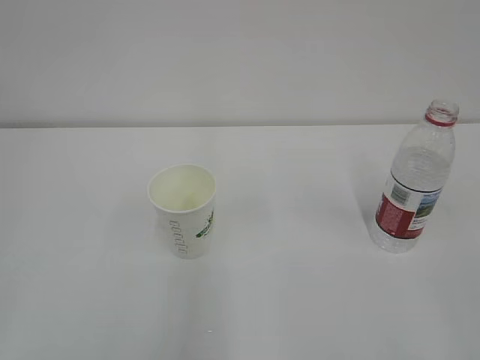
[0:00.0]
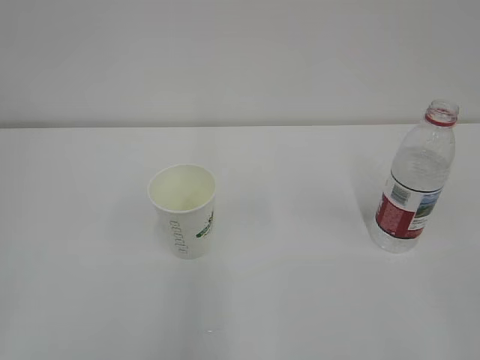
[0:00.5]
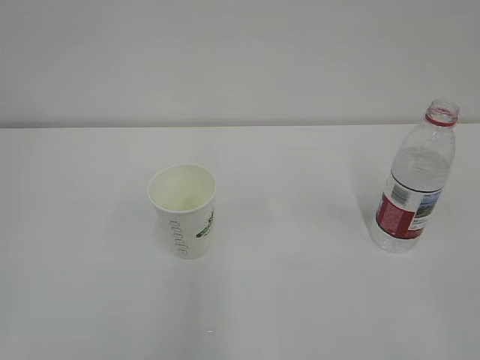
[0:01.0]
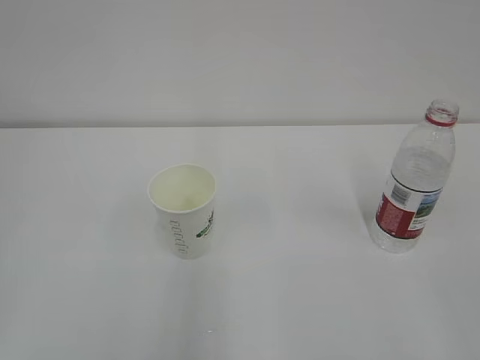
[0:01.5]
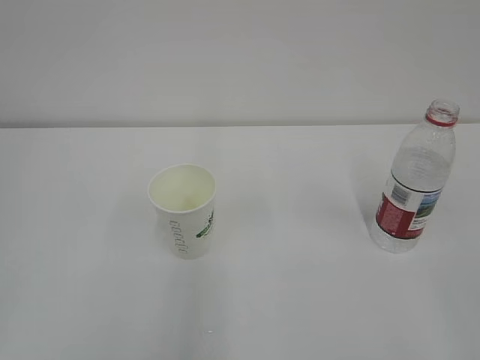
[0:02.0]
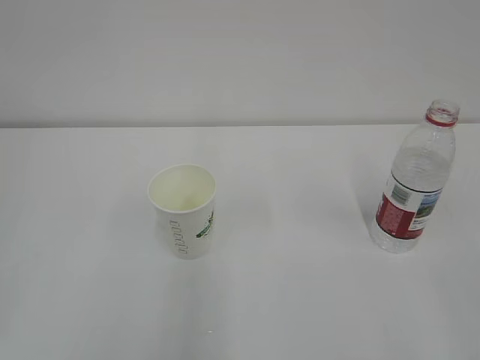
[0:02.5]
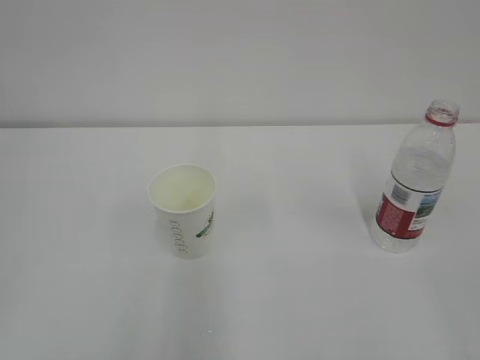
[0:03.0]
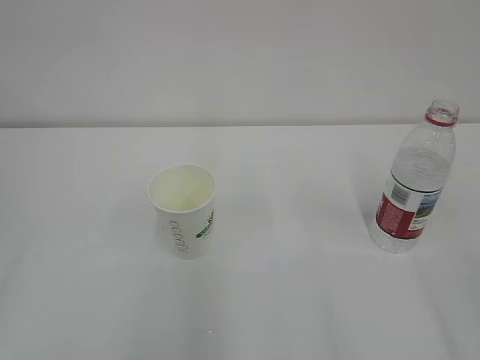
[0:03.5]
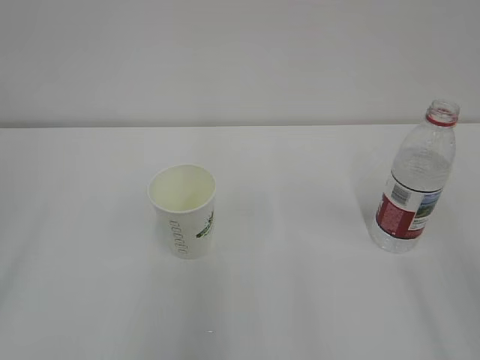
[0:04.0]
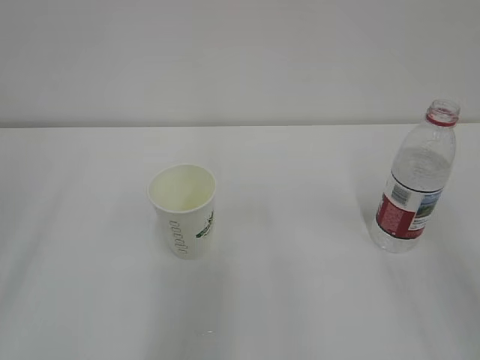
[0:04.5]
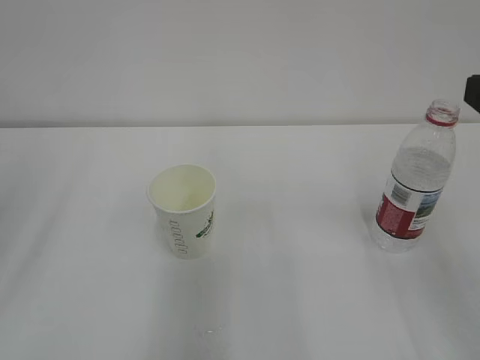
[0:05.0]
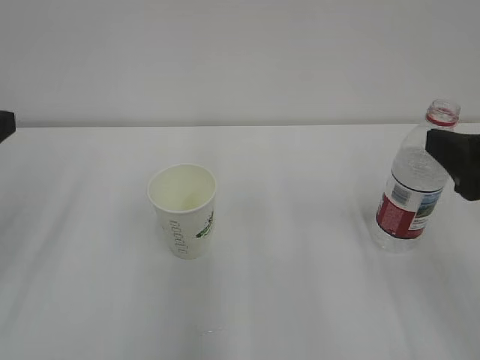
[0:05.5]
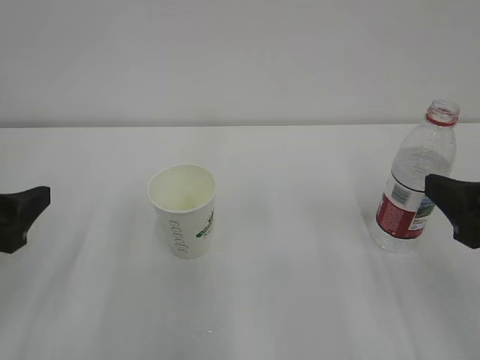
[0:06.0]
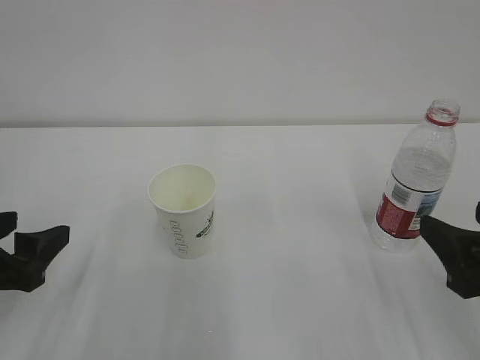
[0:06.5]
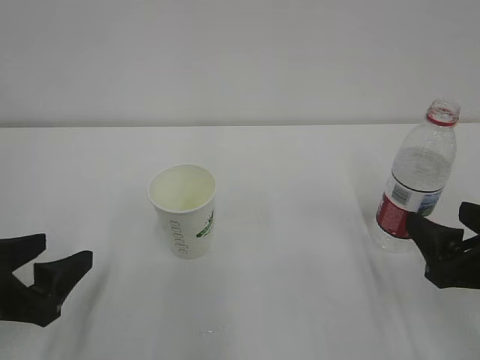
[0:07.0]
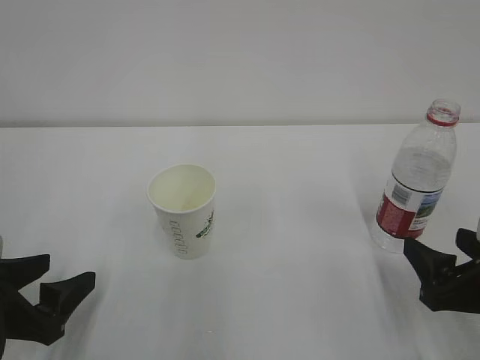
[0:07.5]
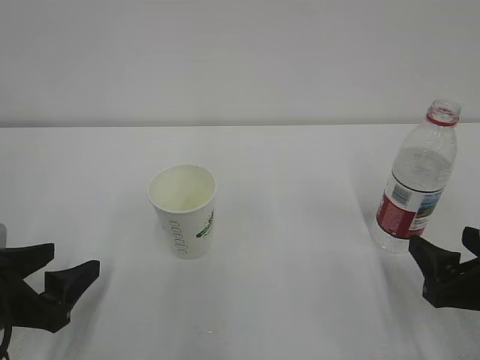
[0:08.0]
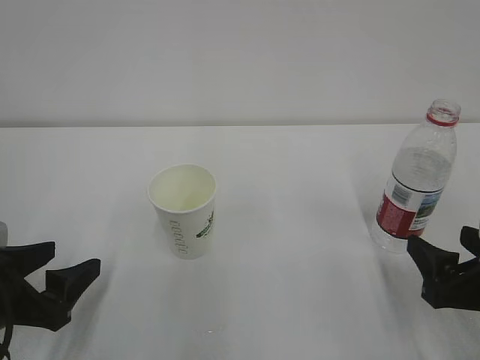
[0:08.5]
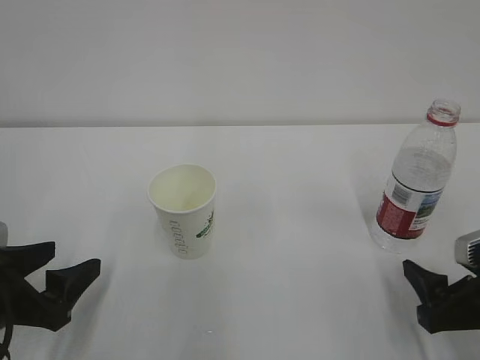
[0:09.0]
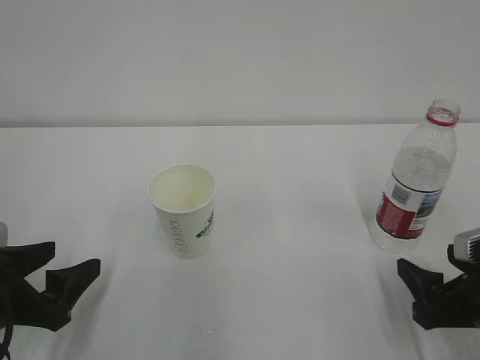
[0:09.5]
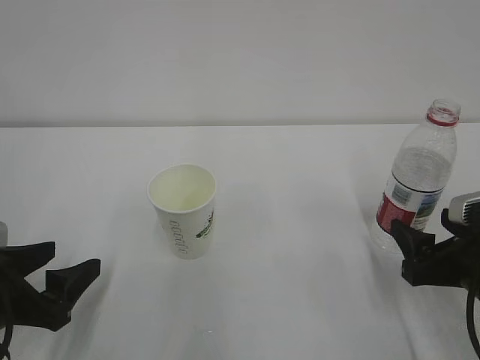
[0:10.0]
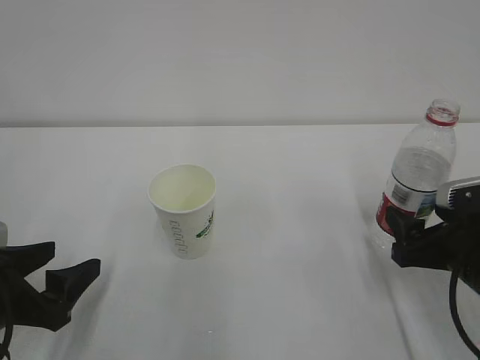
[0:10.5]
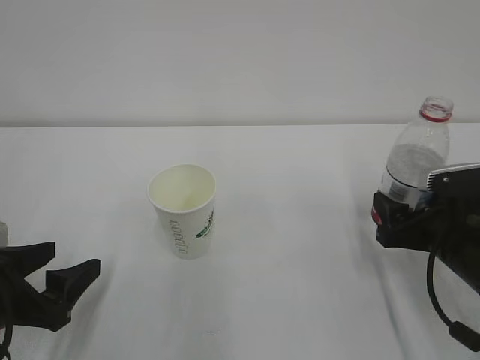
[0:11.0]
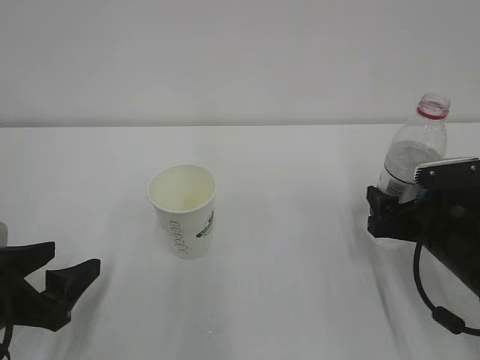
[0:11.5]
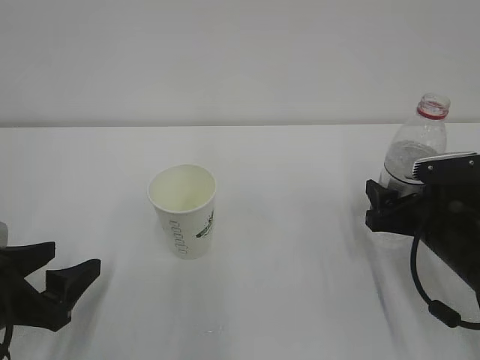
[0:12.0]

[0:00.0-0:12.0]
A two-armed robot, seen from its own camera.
0:04.0 to 0:06.0: Both grippers move downward and forward, some 15 cm.
0:06.0 to 0:08.0: Both grippers move downward, about 10 cm.
0:08.0 to 0:10.0: The grippers make only small movements.
0:10.0 to 0:12.0: The right gripper travels forward by about 5 cm.

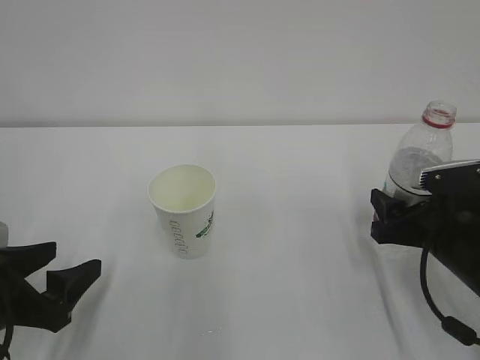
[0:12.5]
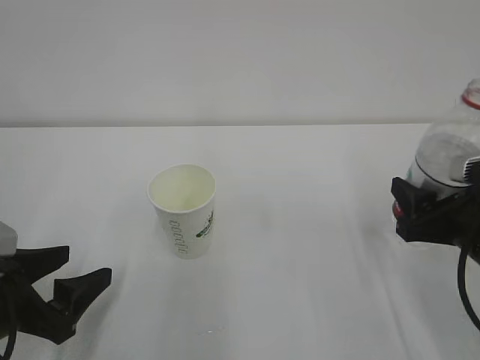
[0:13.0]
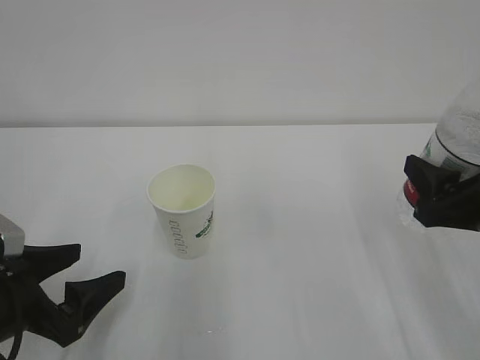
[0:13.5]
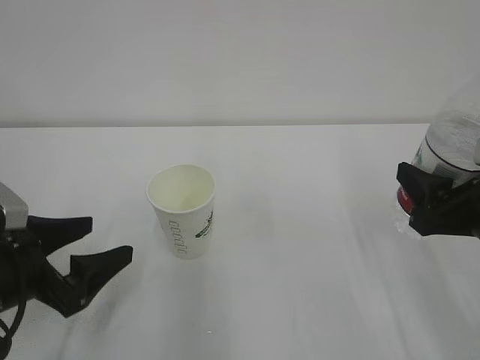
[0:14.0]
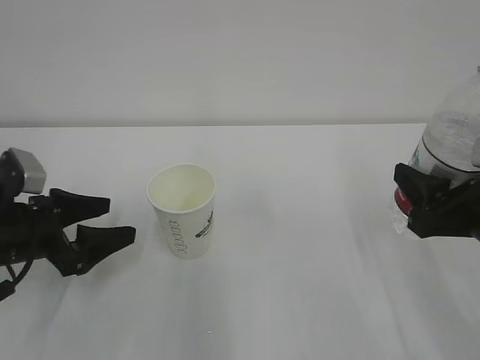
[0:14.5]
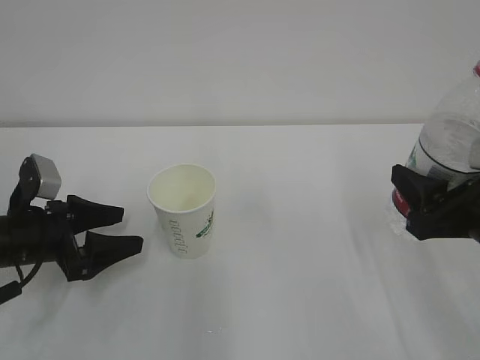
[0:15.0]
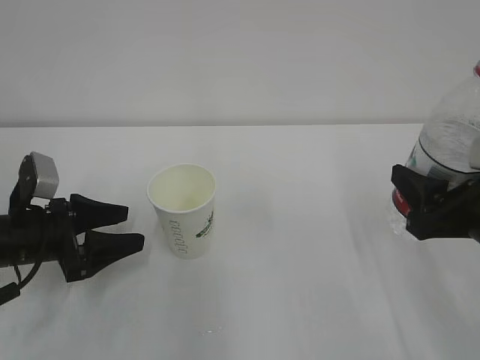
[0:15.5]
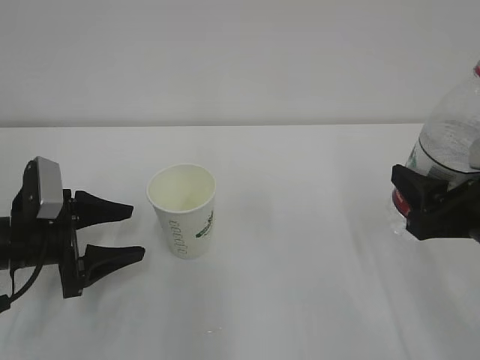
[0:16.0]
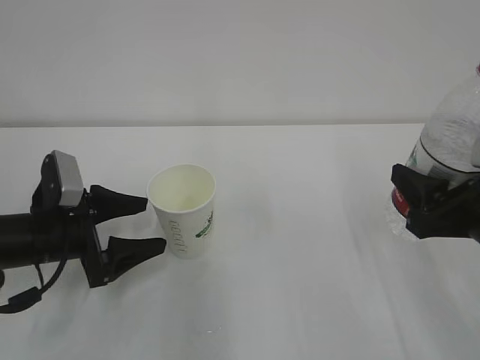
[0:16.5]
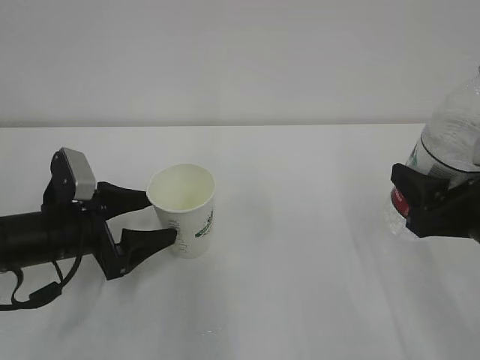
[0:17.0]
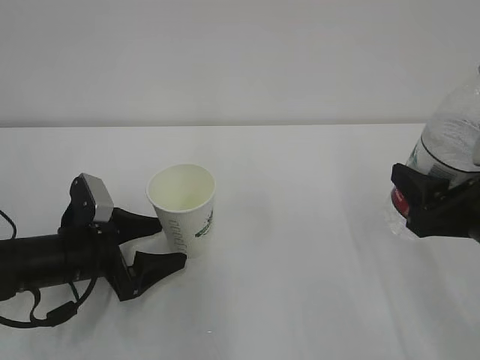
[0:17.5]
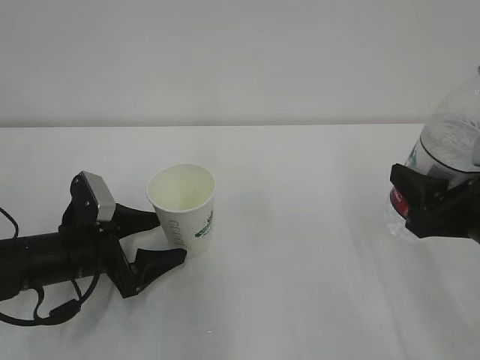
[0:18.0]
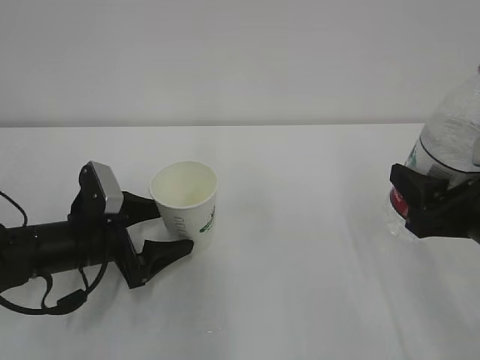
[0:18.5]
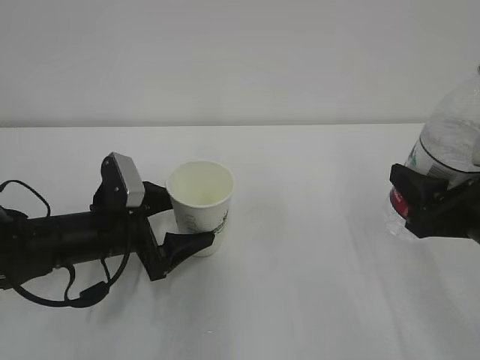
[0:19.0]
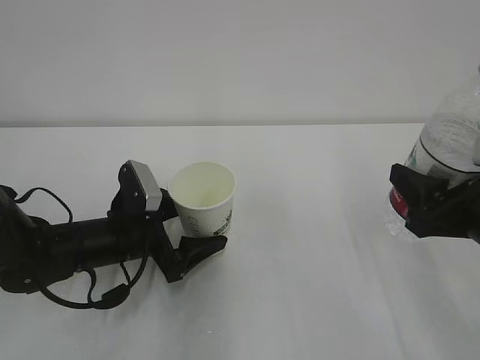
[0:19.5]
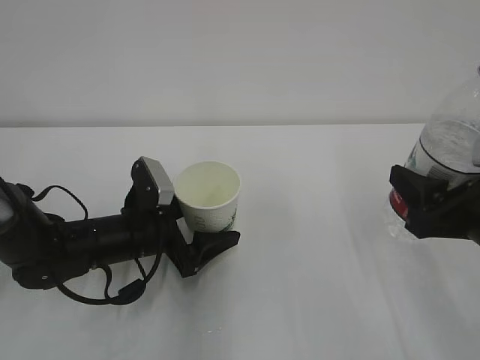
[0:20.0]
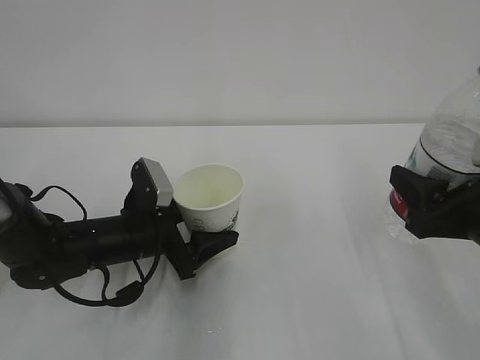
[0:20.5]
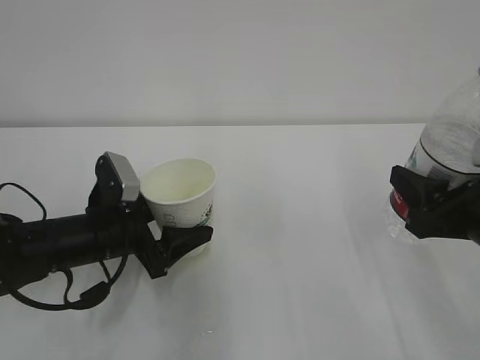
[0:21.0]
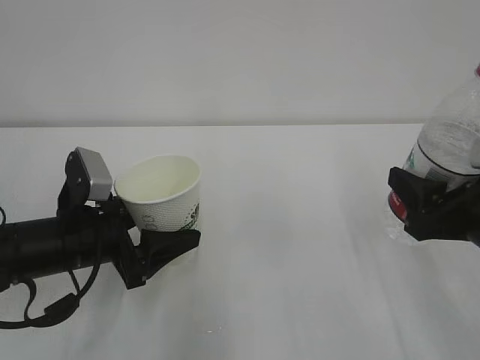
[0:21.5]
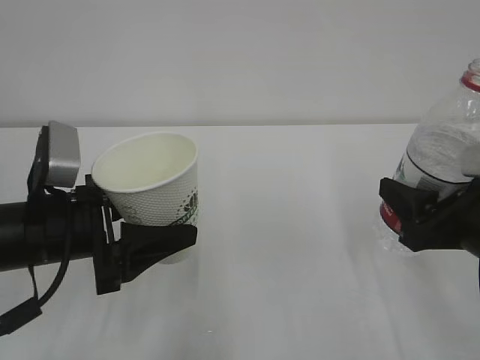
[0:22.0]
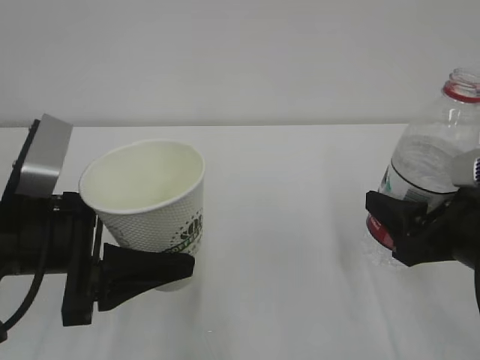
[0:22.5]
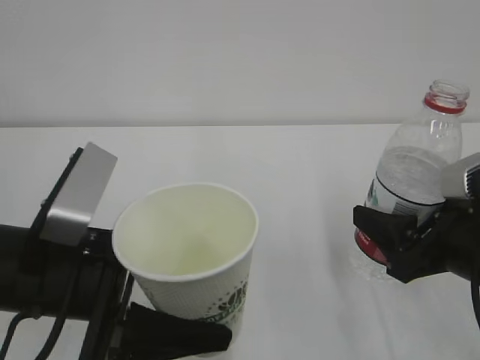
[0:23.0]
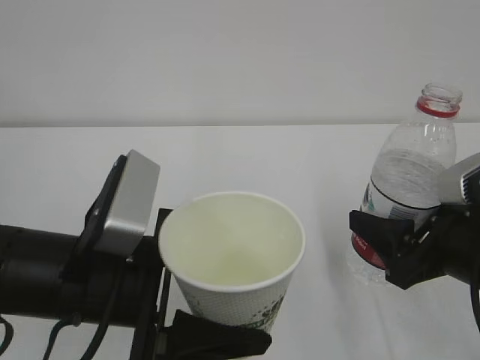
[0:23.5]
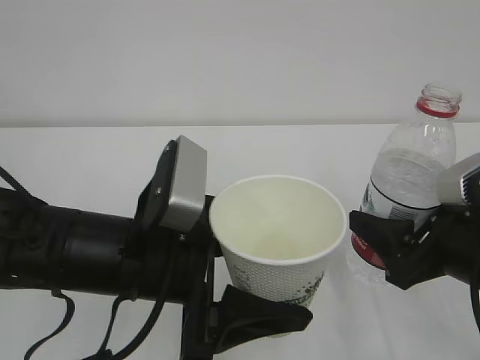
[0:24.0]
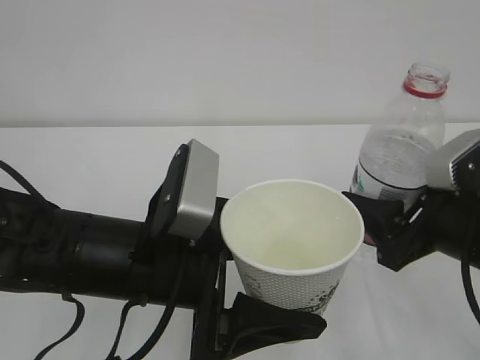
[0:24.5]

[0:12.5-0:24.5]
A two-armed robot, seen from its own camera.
0:12.5 to 0:14.5: The right gripper moves upward and backward, approximately 10 cm, while the left gripper travels forward by roughly 10 cm, and opens up.
0:14.5 to 0:16.5: The left gripper closes, then reopens.
0:16.5 to 0:18.5: The grippers move only a little.
0:18.5 to 0:20.5: The left gripper goes roughly 5 cm to the right, and closes up.
0:20.5 to 0:22.5: The left gripper moves upward and backward, some 15 cm.
0:22.5 to 0:24.5: The left gripper goes some 10 cm to the right.

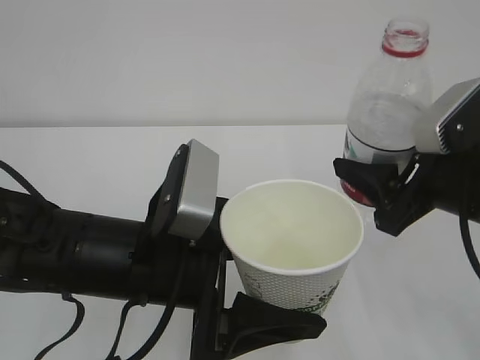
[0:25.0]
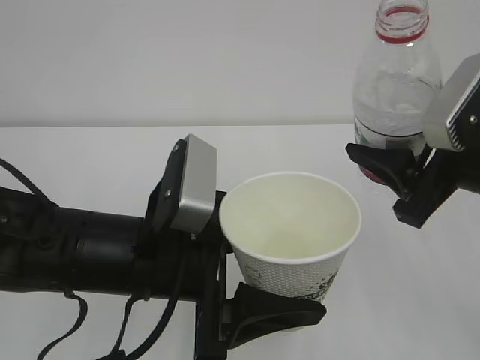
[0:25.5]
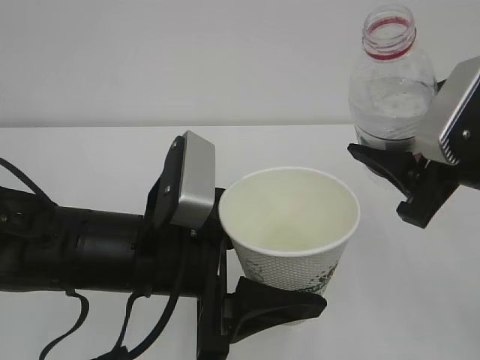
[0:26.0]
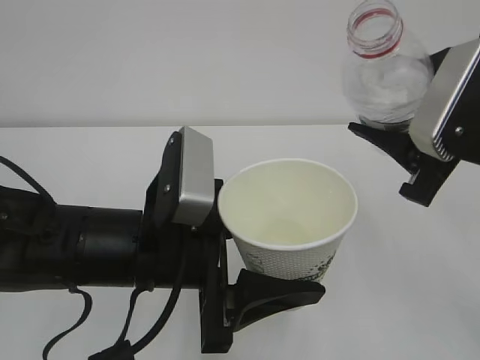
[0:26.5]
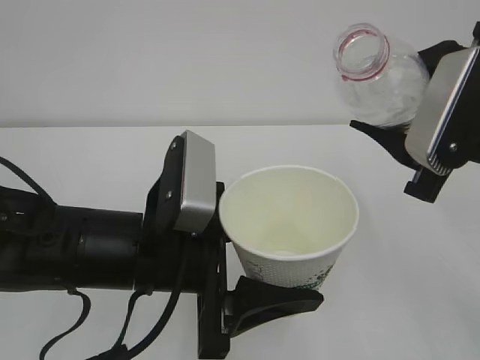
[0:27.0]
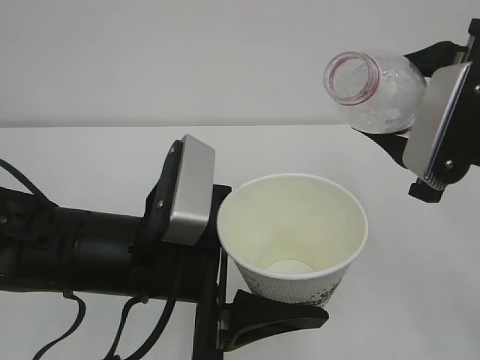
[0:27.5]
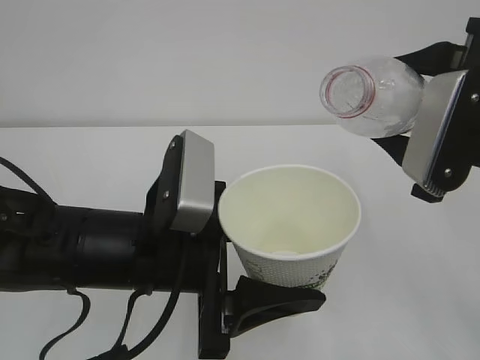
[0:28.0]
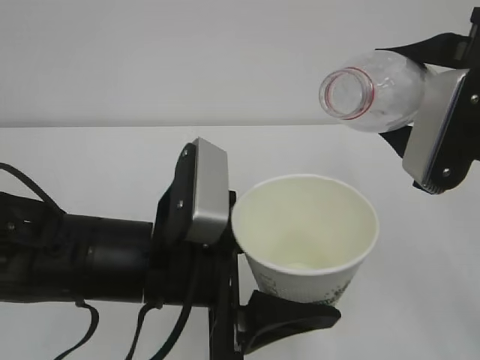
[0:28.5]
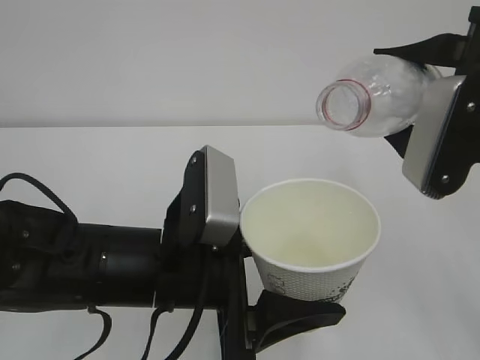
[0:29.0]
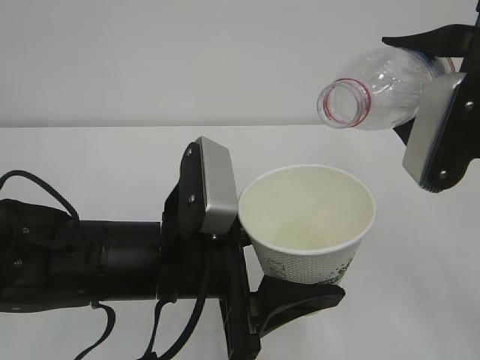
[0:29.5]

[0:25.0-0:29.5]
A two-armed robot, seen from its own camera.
0:25.0 to 0:27.0: The right gripper shifts some 5 cm upward.
